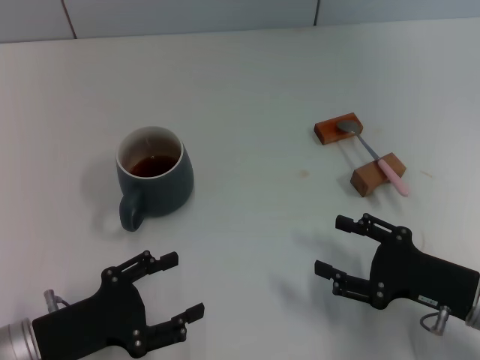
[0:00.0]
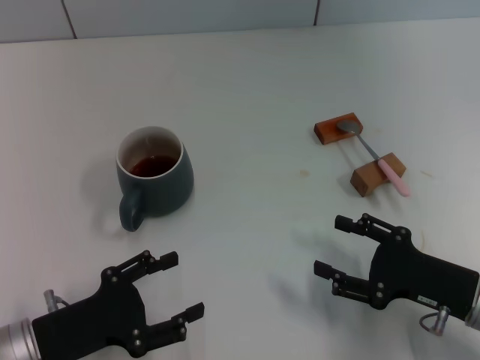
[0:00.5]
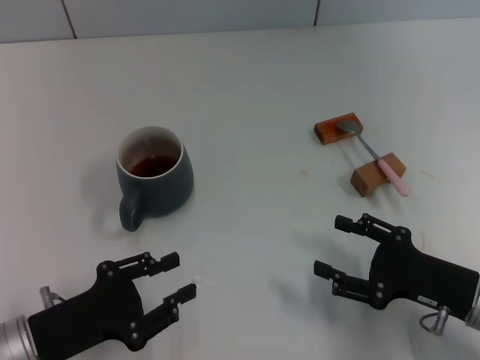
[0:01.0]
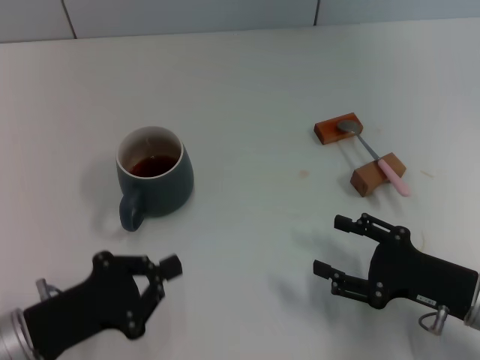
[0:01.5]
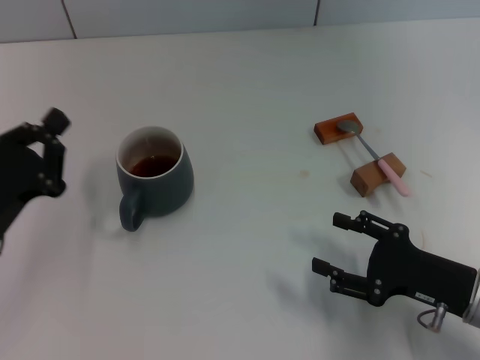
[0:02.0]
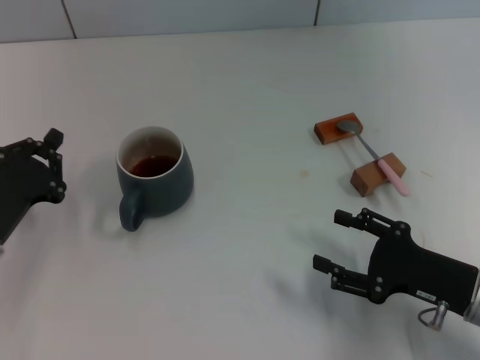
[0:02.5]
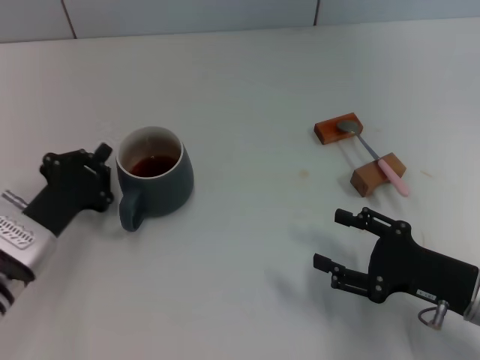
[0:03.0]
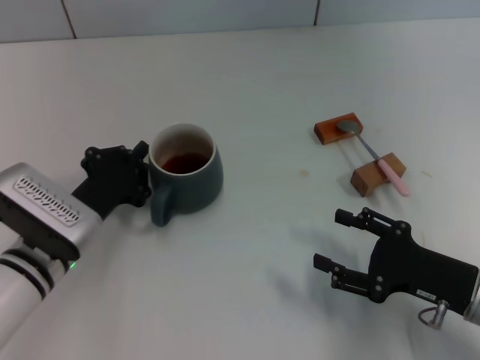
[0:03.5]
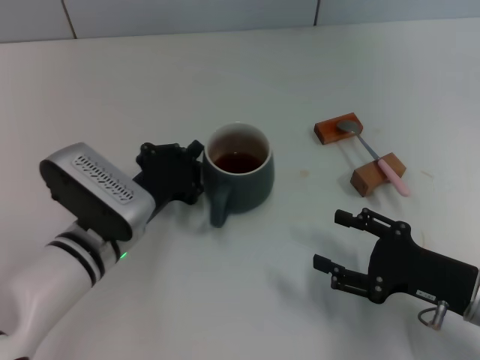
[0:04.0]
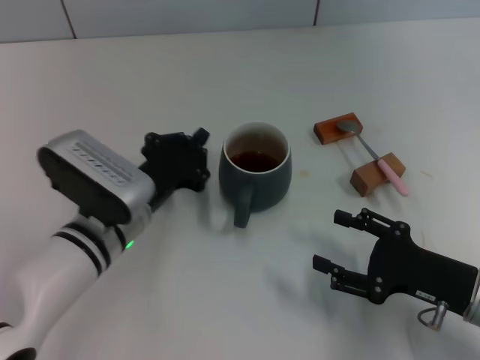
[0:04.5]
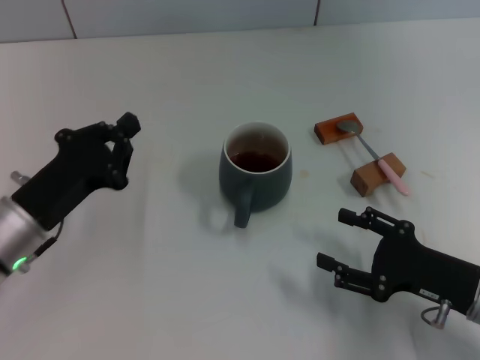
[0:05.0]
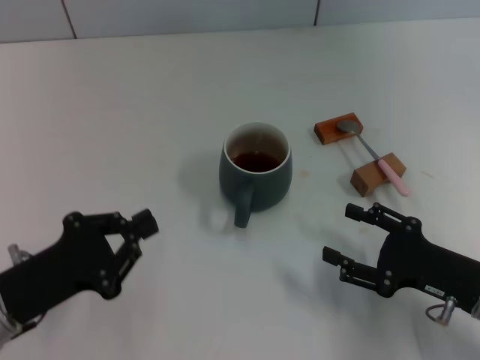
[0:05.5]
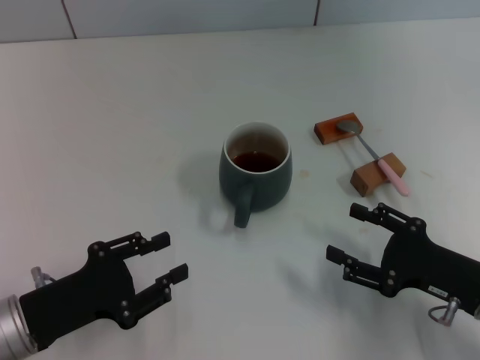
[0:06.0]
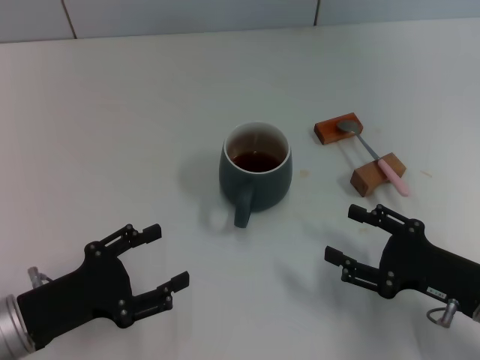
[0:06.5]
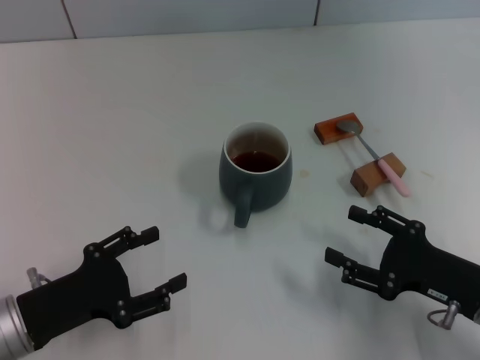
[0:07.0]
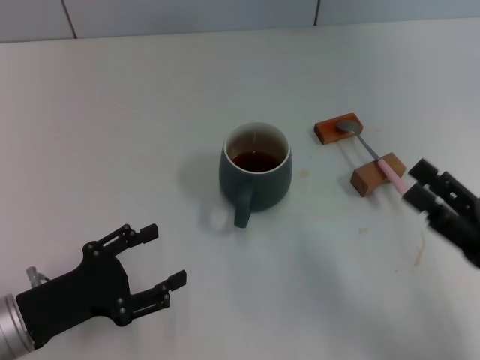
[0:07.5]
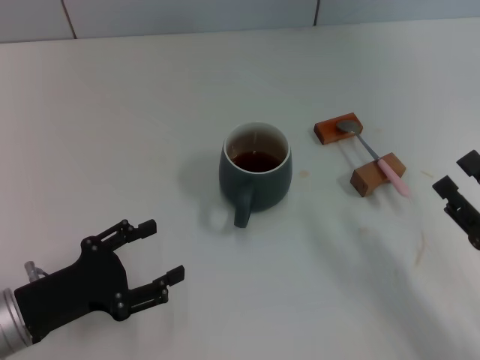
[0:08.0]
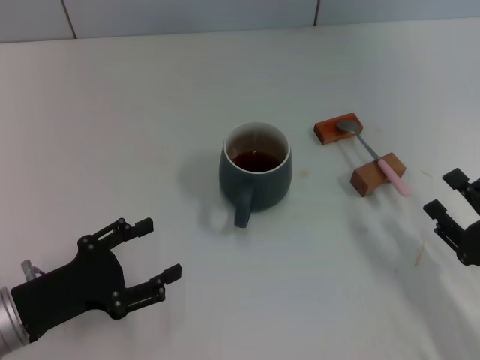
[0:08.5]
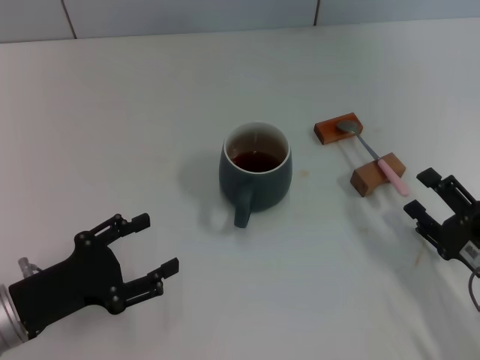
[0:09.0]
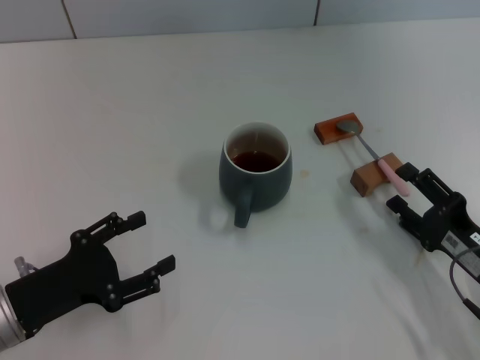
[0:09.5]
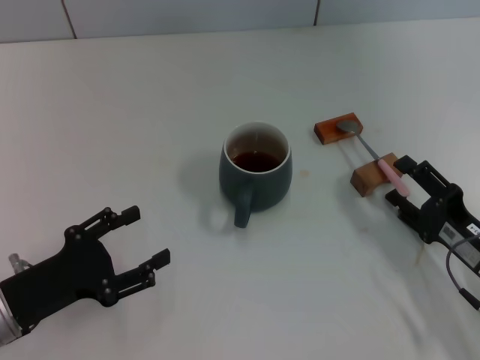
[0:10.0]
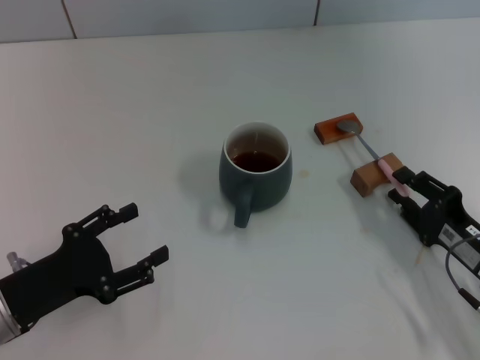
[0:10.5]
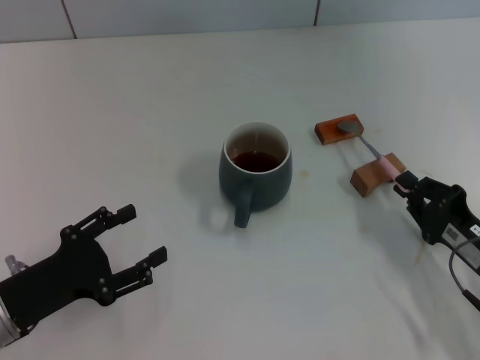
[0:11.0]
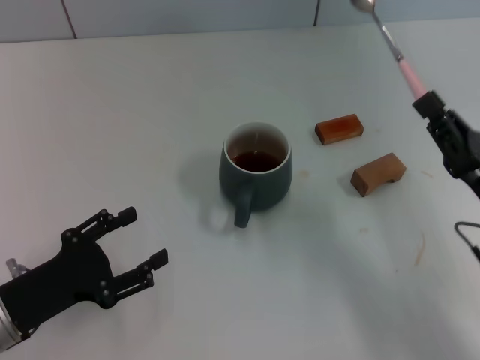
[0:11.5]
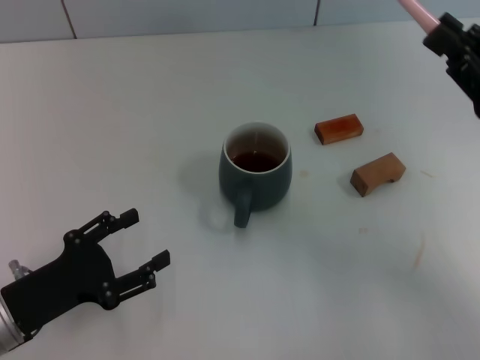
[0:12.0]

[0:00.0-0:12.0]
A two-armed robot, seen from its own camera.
Task of the whole recording: Move the grey cup to the center, lift the pink spoon, stir it three times in the cup, and put the spoon into the cup.
Step, 0:00.0 to 0:04.0: Move the cup with coffee to the center of view with the left gripper.
Step, 0:05.0 to 0:11.0: Pick up the spoon with the right gripper.
0:00.0 to 0:02.0: The left gripper shifts by some 5 cm, and closes.
0:02.0 to 0:04.0: The left gripper travels to the right and forward by roughly 15 cm.
0:04.0 to 0:06.0: The left gripper travels to the left and backward by roughly 15 cm, and opens its fingers.
0:06.0 to 0:08.0: The left gripper opens its fingers. Meanwhile the right gripper ends up roughly 5 cm from where it was.
0:08.0 to 0:10.0: The right gripper travels forward by about 5 cm.
0:10.0 to 0:12.0: The right gripper is displaced upward and forward by some 15 cm, and closes.

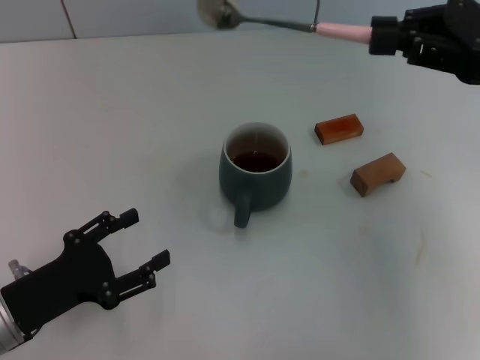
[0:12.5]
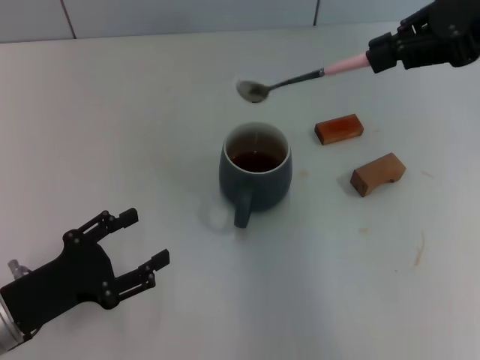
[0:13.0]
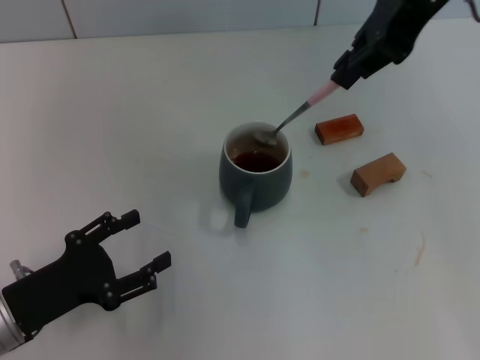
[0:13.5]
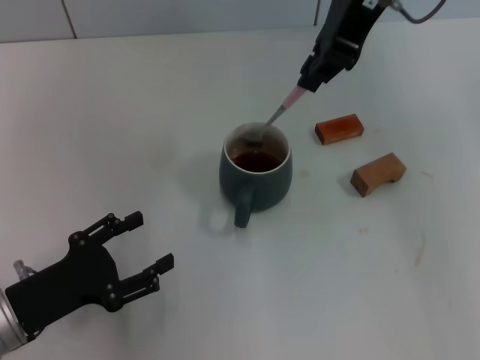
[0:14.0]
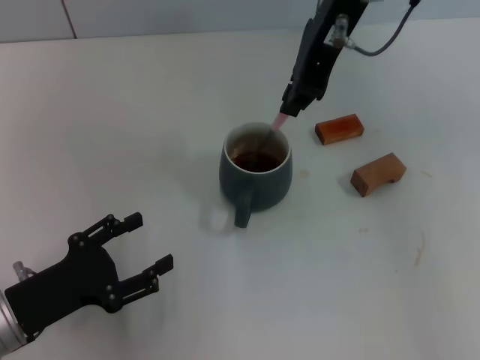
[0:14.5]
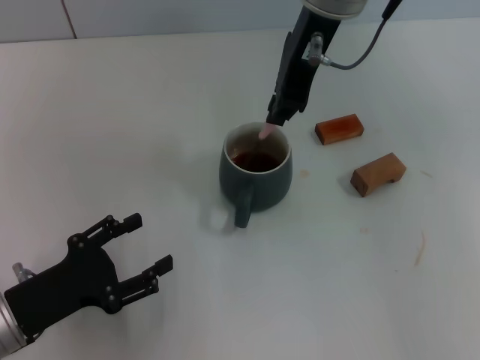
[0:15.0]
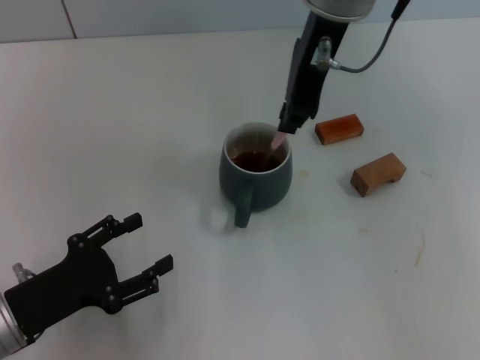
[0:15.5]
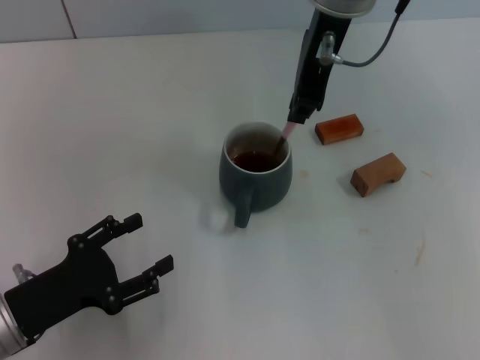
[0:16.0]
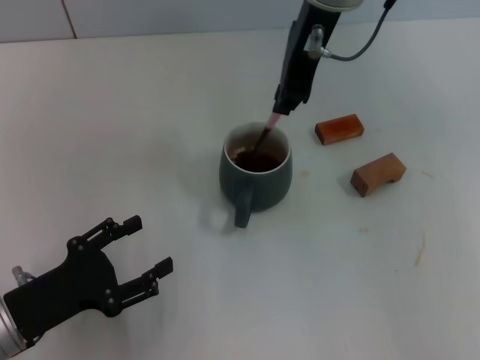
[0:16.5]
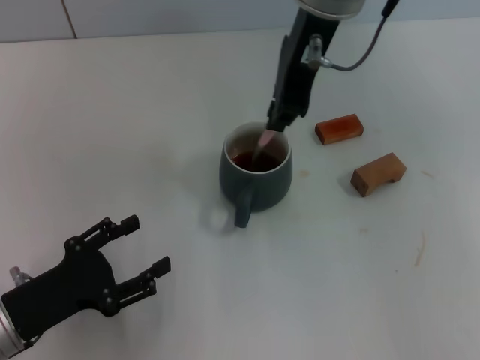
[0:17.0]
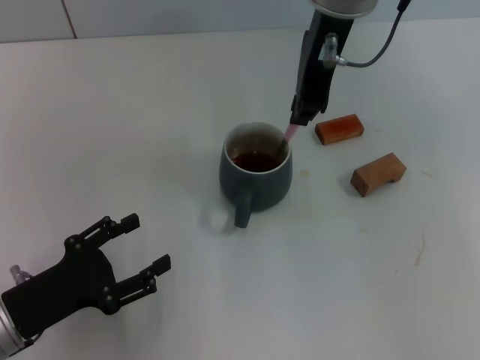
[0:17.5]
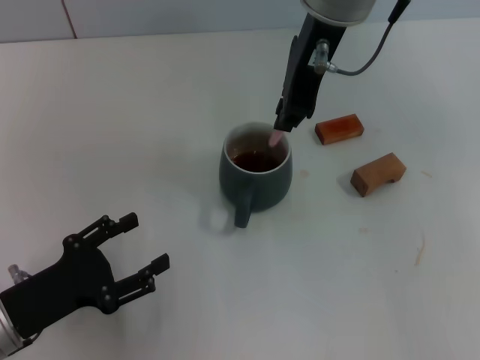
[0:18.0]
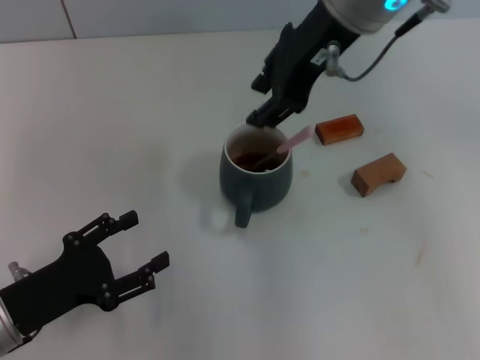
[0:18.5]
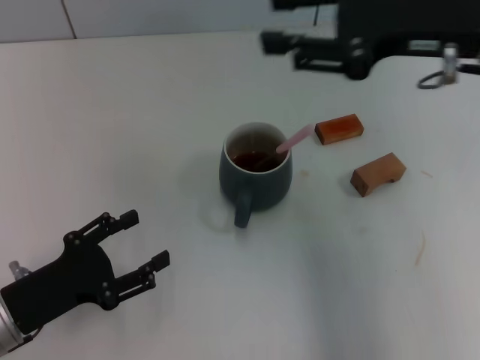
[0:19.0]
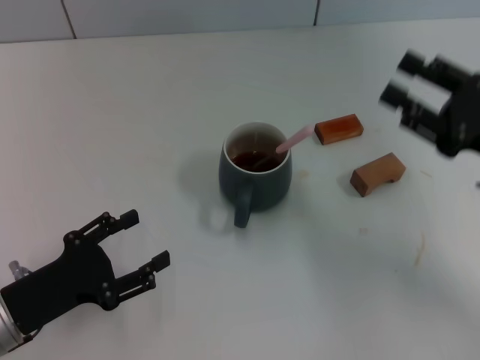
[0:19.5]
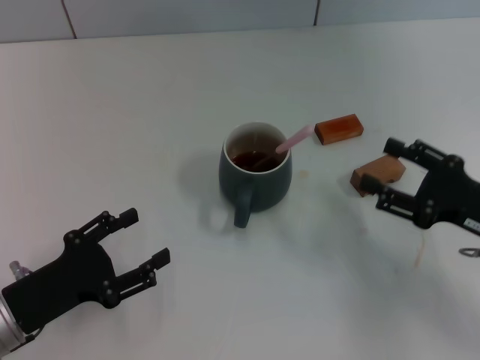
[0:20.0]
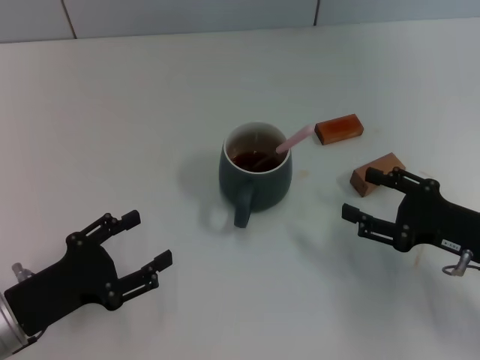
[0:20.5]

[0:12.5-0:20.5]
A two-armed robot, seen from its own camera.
Task of the whole recording: Move the grey cup to the center, lift the pink spoon, stir it three times in the cup, and put the spoon into the cup.
Step, 0:12.5 to 0:18.0: Stir the coffee in the cup with the right gripper.
0:12.5 to 0:14.5: The right gripper travels to the left and forward by approximately 20 cm.
0:14.5 to 0:16.5: The grippers make only small movements.
0:16.5 to 0:18.5: The right gripper opens its fingers.
0:18.5 to 0:20.5: The right gripper travels downward, to the right and backward by some 35 cm, and opens its fingers.
